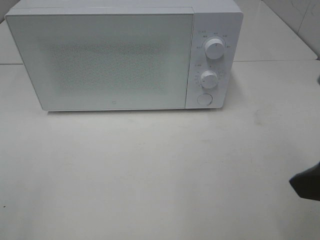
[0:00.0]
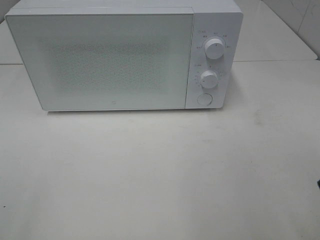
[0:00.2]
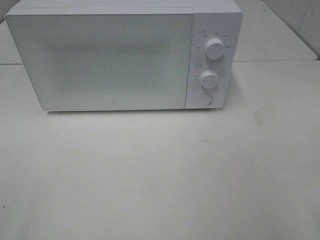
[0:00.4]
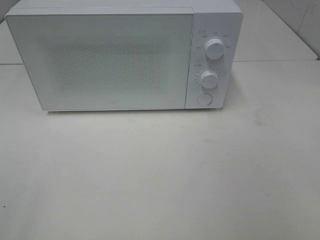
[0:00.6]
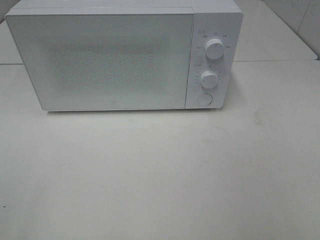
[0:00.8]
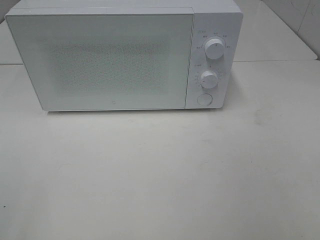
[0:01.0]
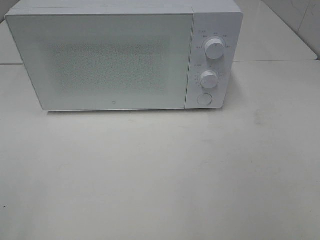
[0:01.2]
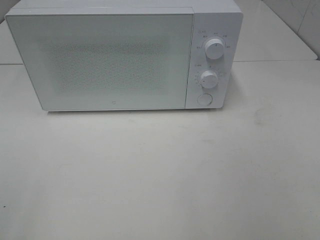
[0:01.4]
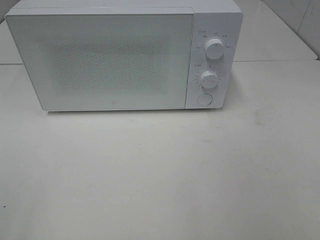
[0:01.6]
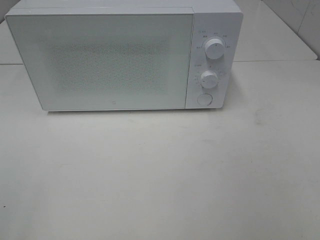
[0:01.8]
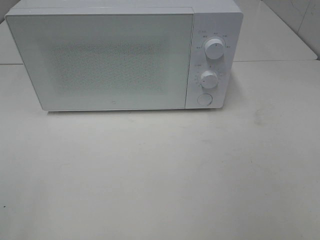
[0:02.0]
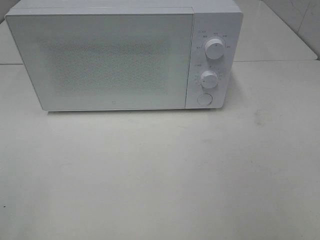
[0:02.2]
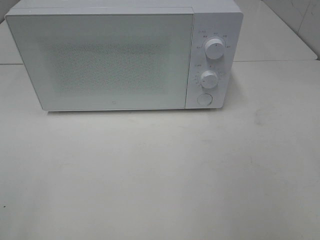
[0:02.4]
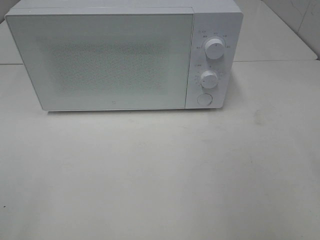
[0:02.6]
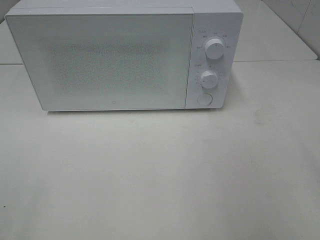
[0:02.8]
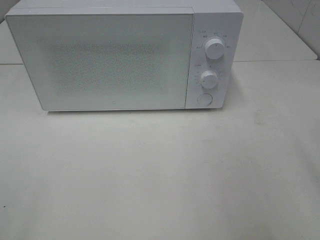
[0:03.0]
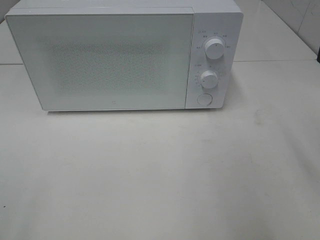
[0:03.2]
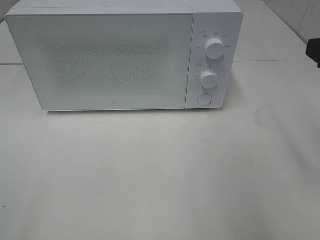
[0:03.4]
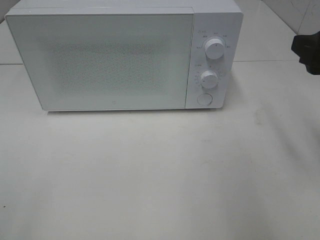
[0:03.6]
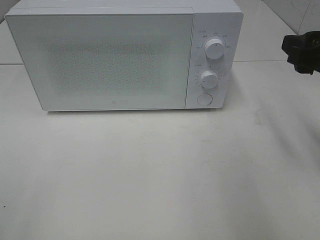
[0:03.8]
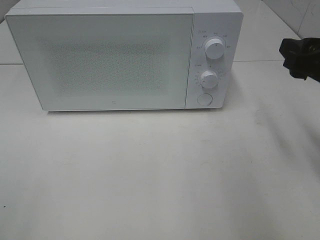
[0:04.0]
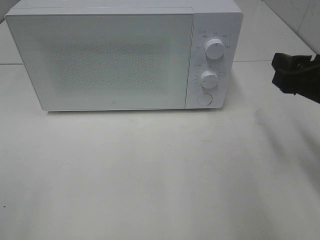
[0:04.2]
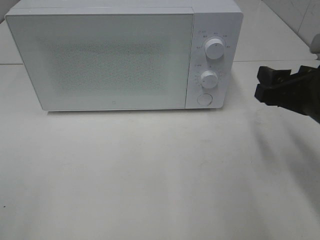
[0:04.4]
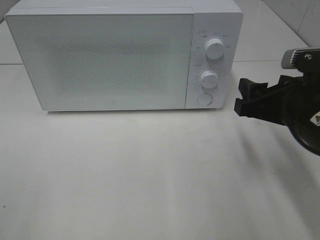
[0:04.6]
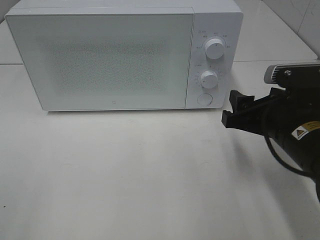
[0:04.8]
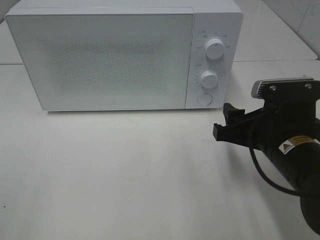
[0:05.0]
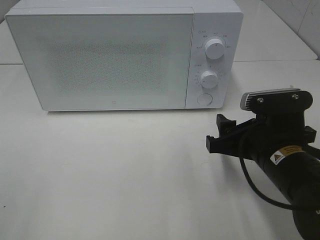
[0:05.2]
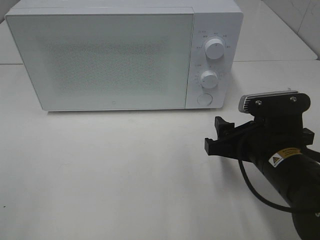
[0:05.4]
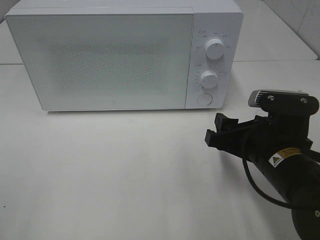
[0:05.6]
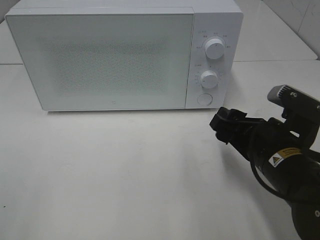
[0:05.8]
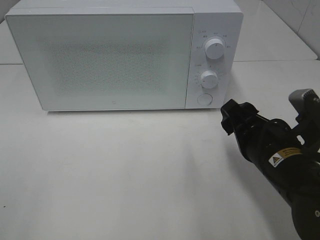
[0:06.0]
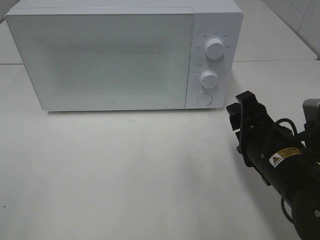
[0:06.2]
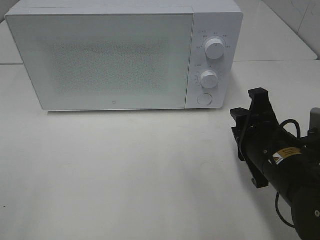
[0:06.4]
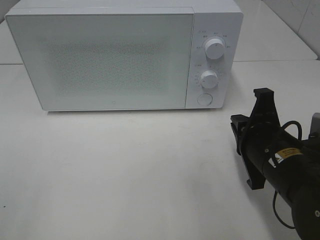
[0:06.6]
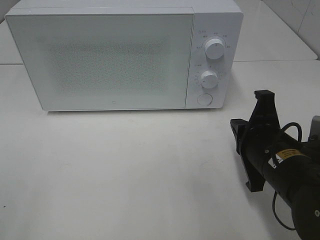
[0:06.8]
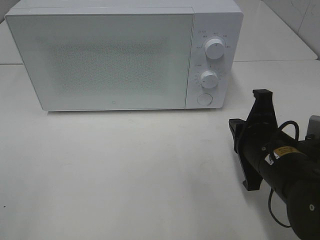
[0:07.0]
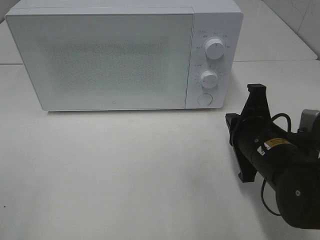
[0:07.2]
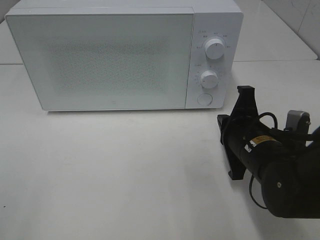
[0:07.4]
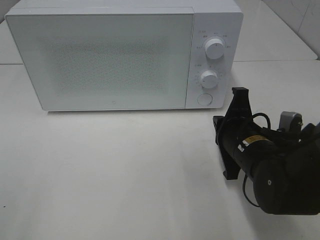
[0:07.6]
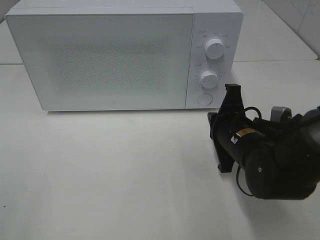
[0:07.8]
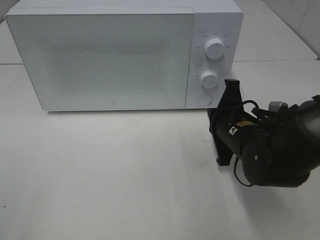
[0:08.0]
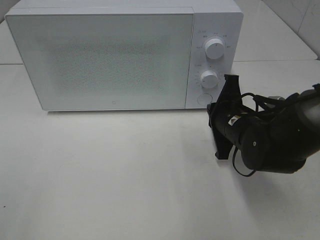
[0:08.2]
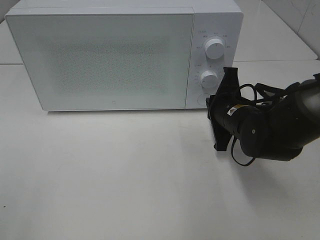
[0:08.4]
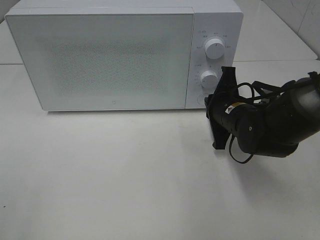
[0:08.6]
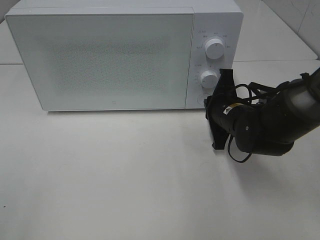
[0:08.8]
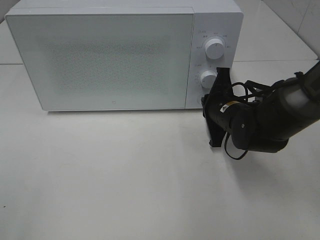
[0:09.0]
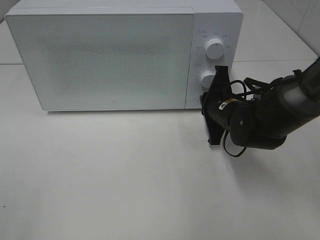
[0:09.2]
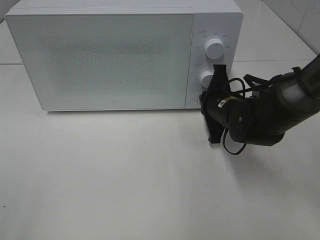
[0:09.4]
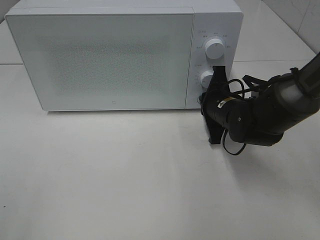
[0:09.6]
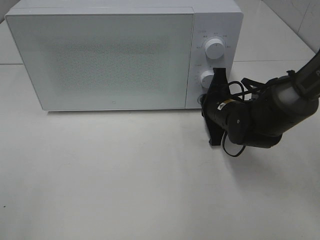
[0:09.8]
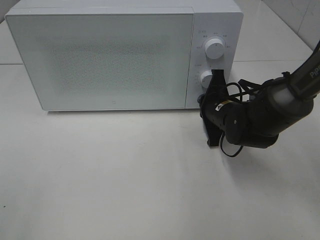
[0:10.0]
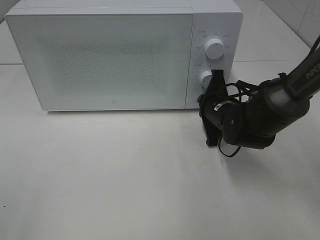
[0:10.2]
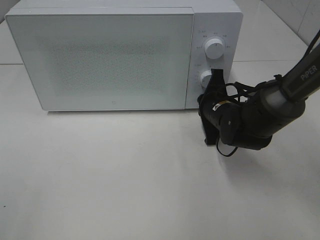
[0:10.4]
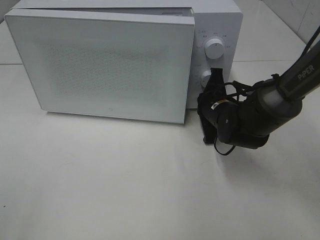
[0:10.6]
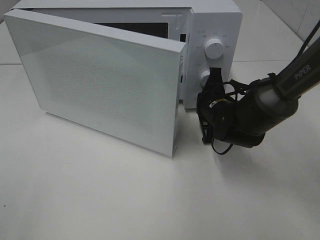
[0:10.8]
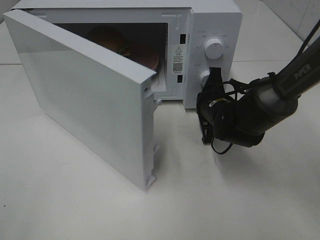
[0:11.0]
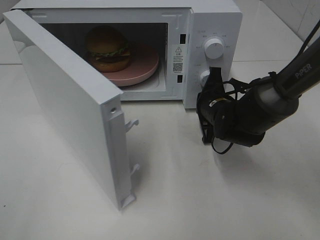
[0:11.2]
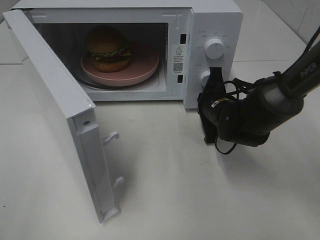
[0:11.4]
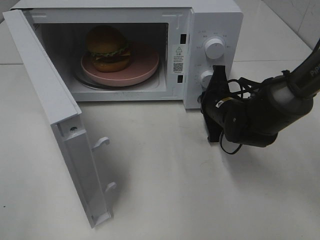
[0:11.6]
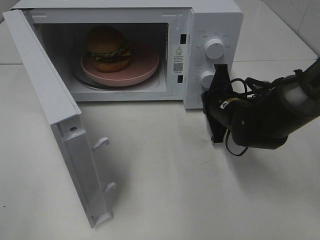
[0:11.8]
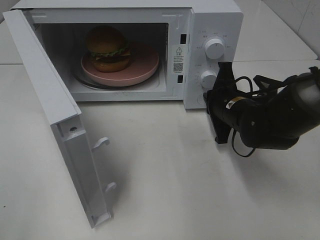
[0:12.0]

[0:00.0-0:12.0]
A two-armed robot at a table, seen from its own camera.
Task of the whole recording: Heat the burger.
0:00.0 to 0:01.6: The right gripper moves backward and to the right, approximately 15 cm.
0:03.0 to 0:04.4: The right gripper shifts roughly 15 cm downward and forward.
0:04.4 to 0:06.0: The right gripper shifts about 10 cm to the left and downward.
0:06.0 to 0:07.6: The right gripper changes place by some 5 cm, and closes up.
0:07.6 to 0:09.0: The right gripper travels forward by some 10 cm.
0:09.0 to 0:10.4: The grippers make only small movements.

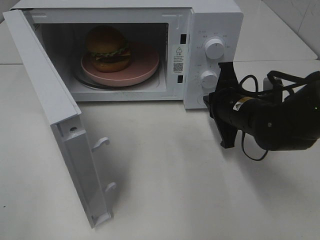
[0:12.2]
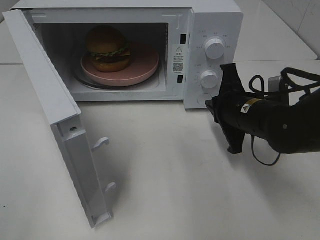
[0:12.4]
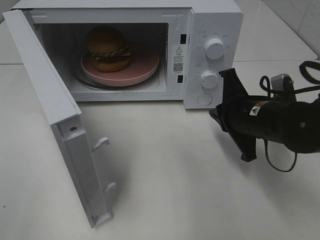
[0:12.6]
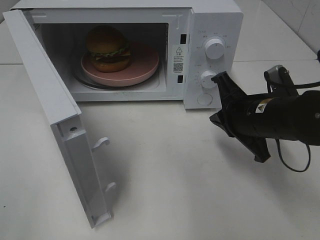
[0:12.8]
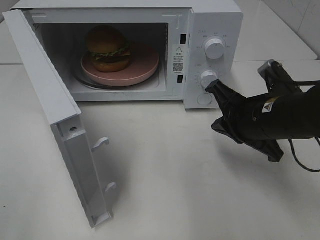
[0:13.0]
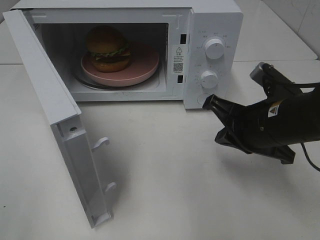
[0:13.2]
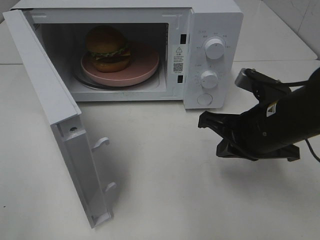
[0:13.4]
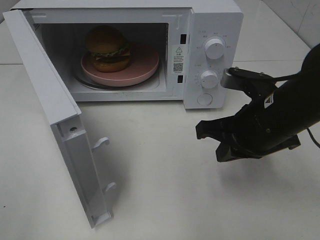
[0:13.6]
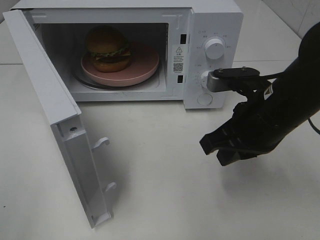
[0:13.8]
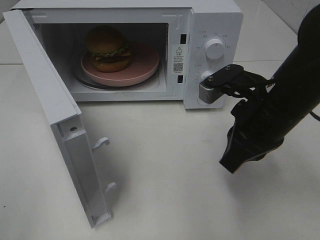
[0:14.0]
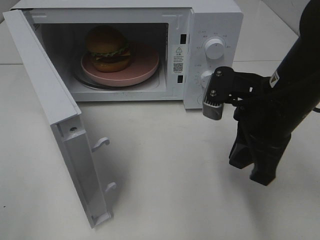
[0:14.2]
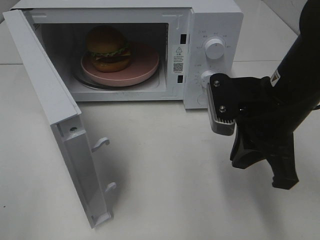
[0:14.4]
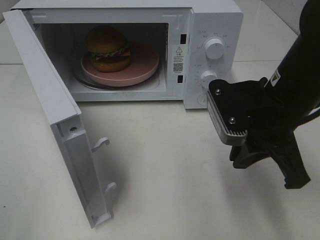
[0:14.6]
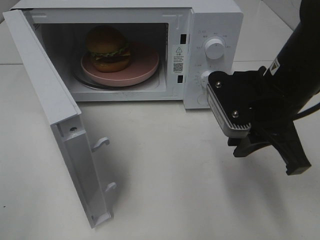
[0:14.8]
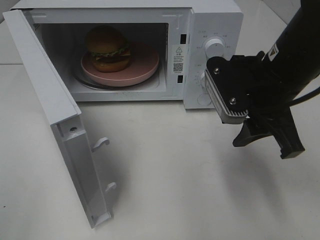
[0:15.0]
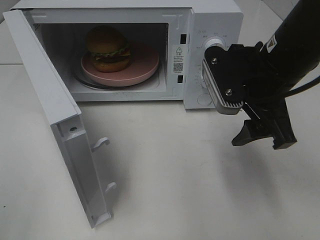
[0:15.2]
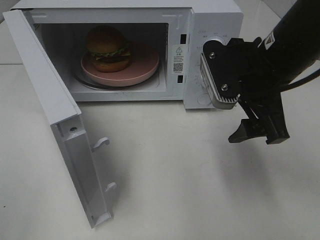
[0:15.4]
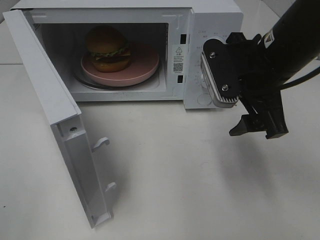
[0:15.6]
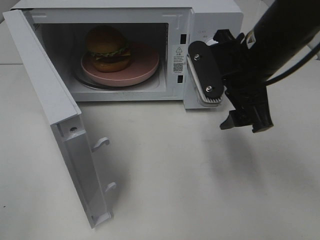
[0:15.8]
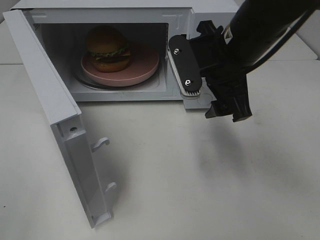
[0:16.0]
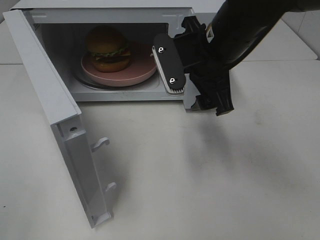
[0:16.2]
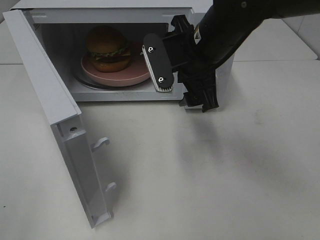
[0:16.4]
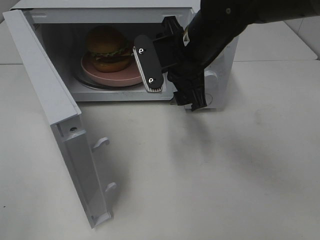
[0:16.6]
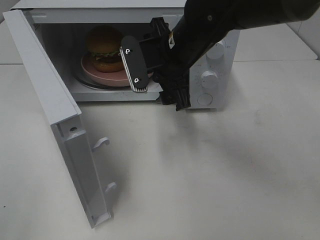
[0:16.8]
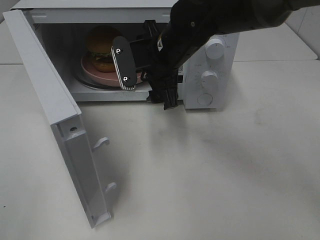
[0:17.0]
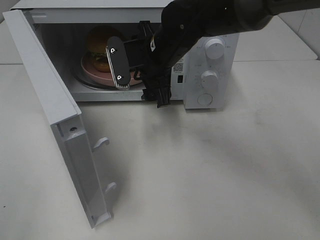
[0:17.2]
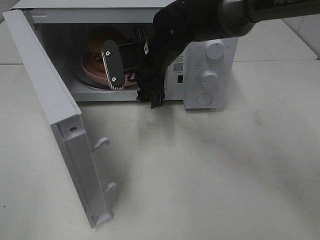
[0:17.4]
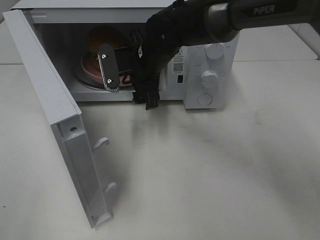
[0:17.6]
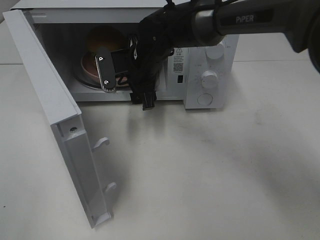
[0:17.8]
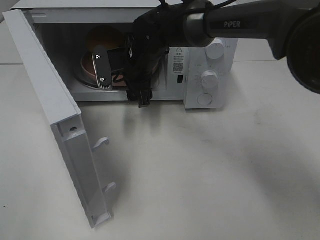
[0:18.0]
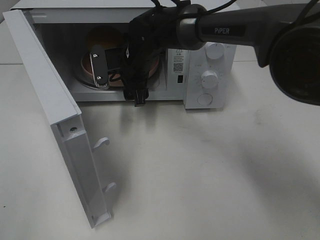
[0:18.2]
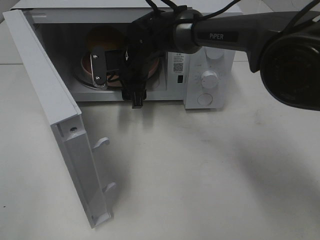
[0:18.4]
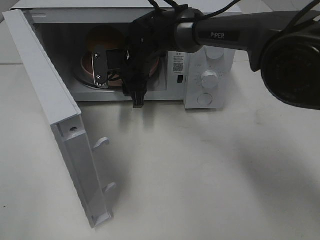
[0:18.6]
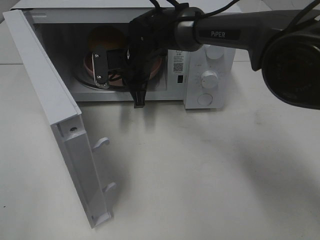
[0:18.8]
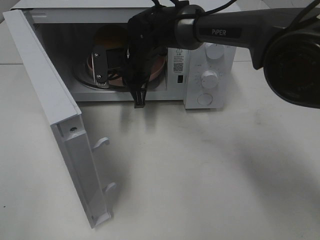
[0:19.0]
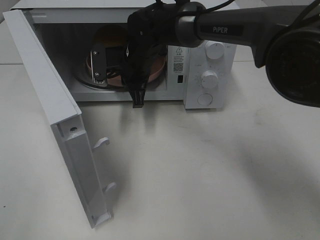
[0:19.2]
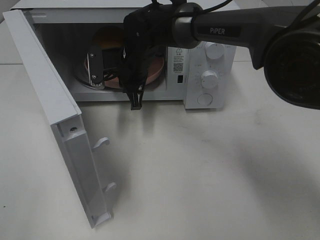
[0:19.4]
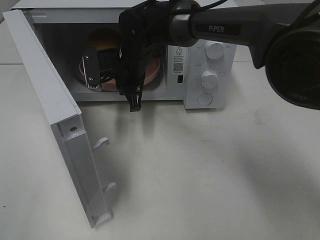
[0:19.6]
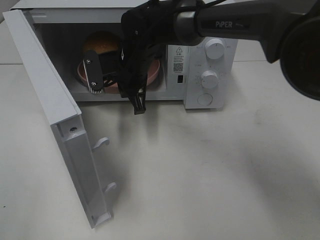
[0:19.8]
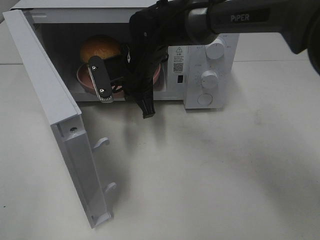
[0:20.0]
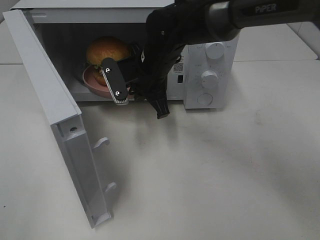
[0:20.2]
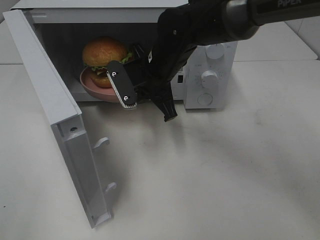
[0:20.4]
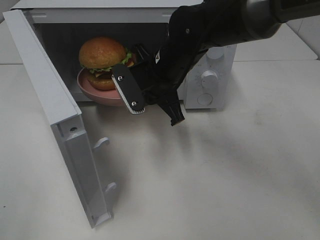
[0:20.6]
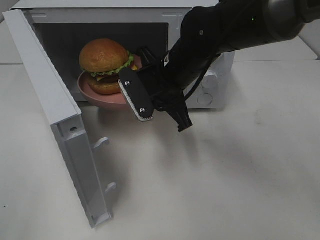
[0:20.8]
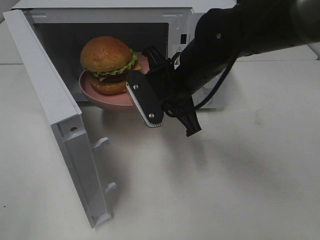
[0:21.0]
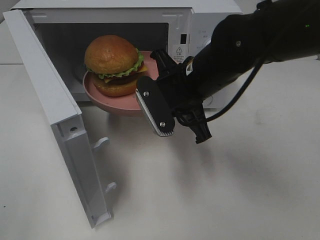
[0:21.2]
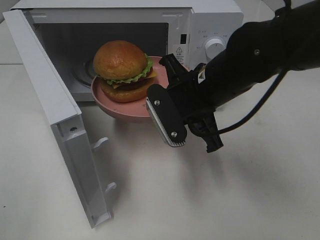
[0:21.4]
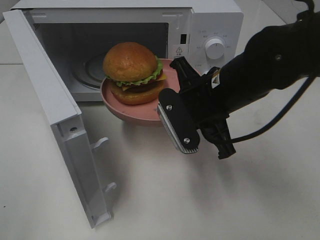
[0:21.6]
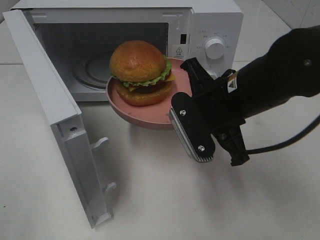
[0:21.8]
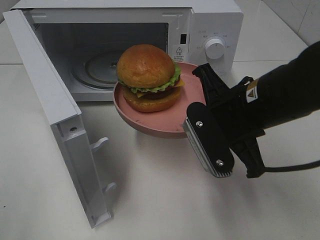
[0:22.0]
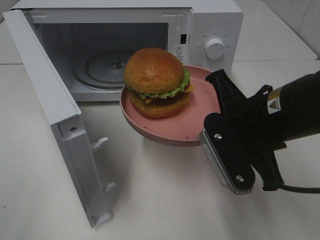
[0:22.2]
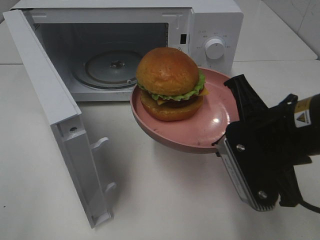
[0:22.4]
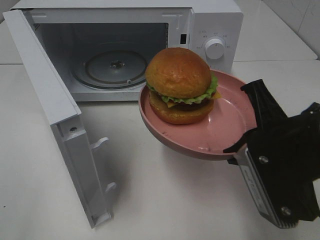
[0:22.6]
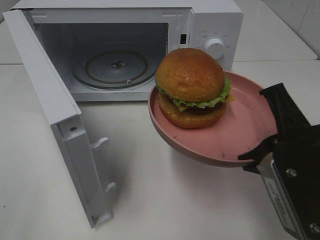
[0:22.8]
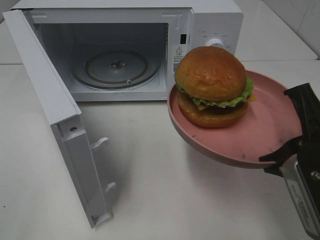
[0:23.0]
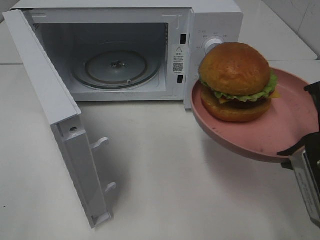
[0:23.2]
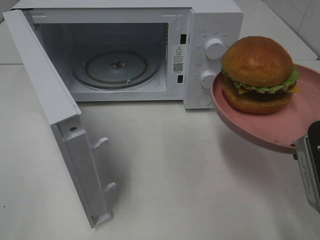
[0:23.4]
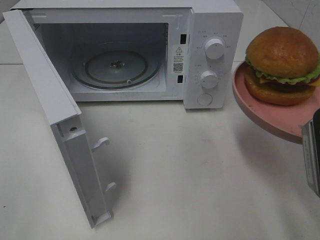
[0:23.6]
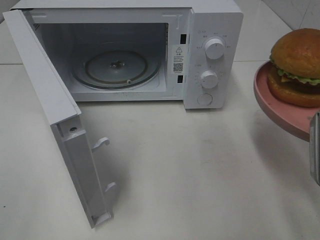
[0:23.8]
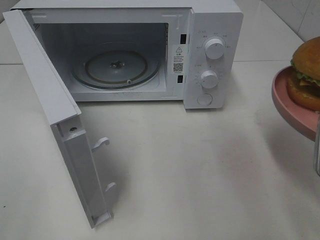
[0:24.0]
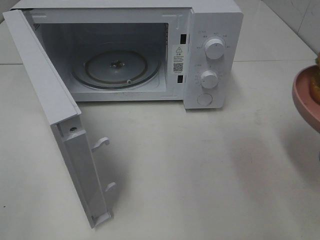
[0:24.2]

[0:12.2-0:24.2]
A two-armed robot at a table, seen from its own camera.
Task of the whole recording: Heat the burger.
Step, 0:12.2 to 0:19.2: Right hand: grab the plate with the hamburger.
0:12.2 to 0:13.8: The right gripper heads upward and backward, covering approximately 10 cm.
0:13.8 to 0:15.2: The right gripper travels upward by about 5 cm, and opens up.
0:15.2 to 0:16.6: The right gripper heads to the left and forward, covering approximately 10 cm.
0:16.6 to 0:18.2: The right gripper travels forward, to the left and downward by about 15 cm.
0:18.2 to 0:19.8: The right gripper closes up.
0:19.8 to 0:21.2: The right gripper travels backward and to the right by about 15 cm.
0:21.2 to 0:22.6: The right gripper heads backward and to the right, covering some 15 cm.
0:22.6 to 0:24.2: The right gripper moves to the right, some 10 cm.
